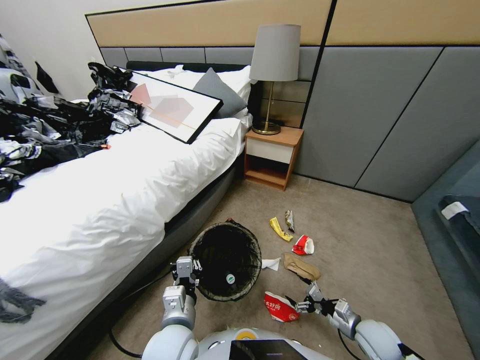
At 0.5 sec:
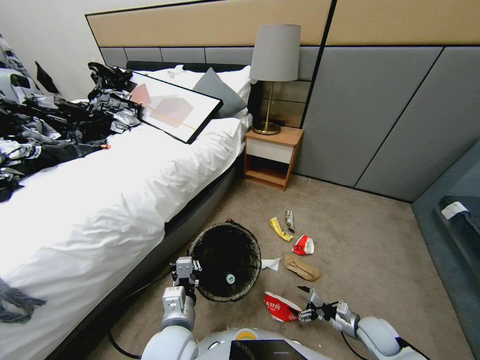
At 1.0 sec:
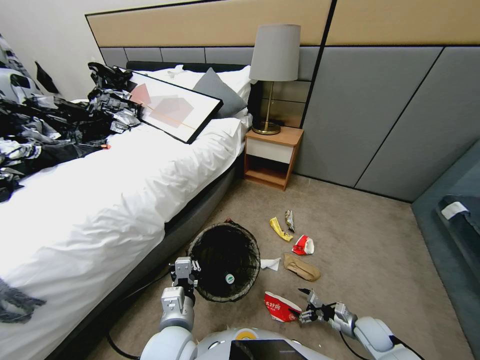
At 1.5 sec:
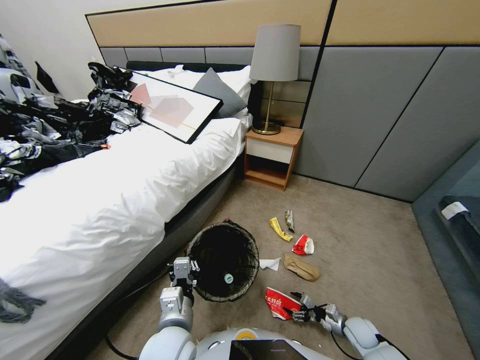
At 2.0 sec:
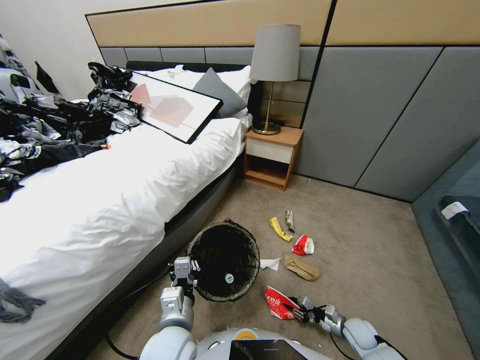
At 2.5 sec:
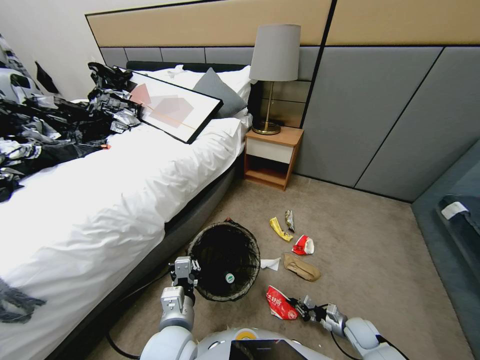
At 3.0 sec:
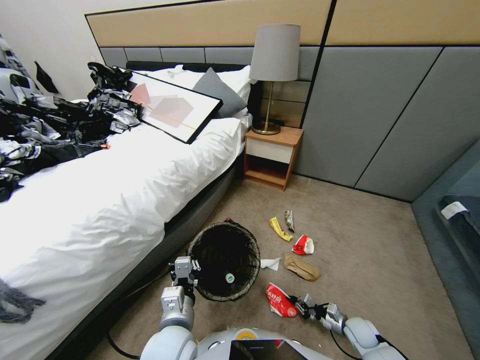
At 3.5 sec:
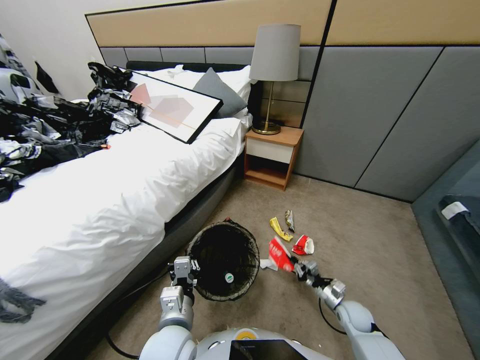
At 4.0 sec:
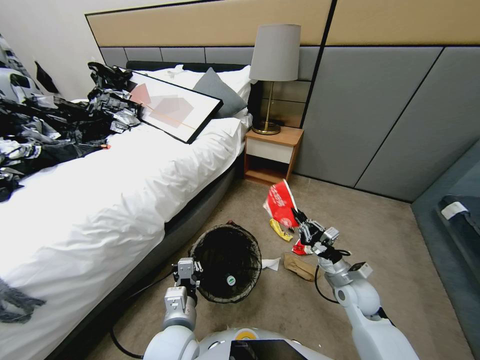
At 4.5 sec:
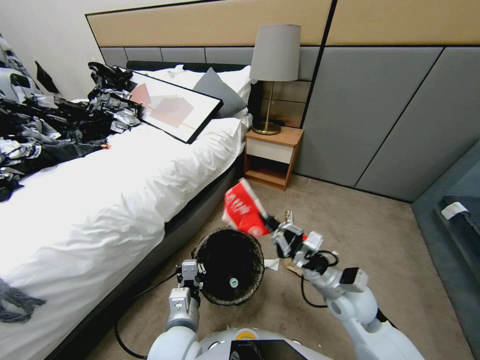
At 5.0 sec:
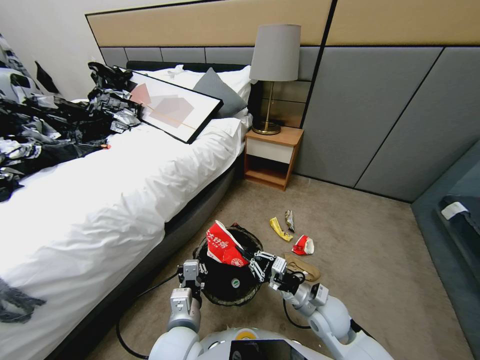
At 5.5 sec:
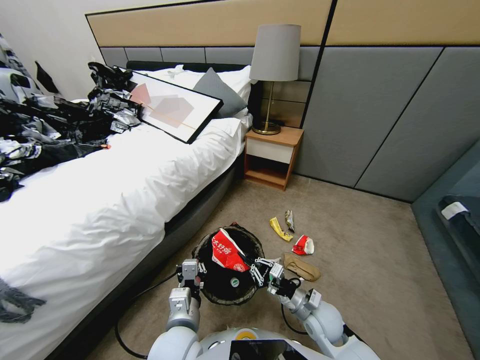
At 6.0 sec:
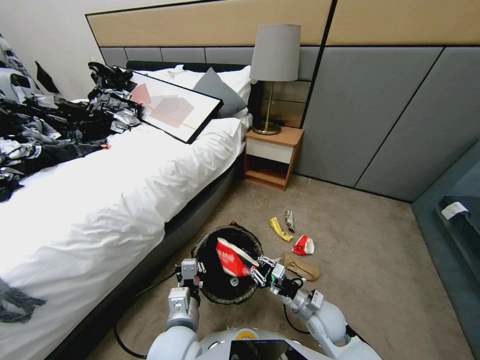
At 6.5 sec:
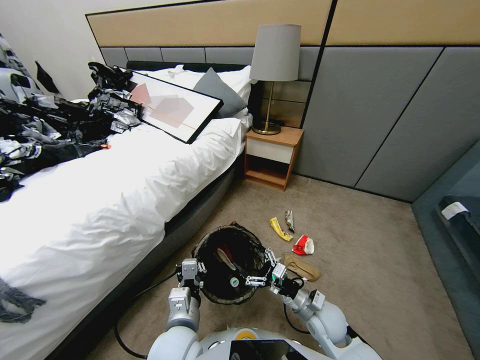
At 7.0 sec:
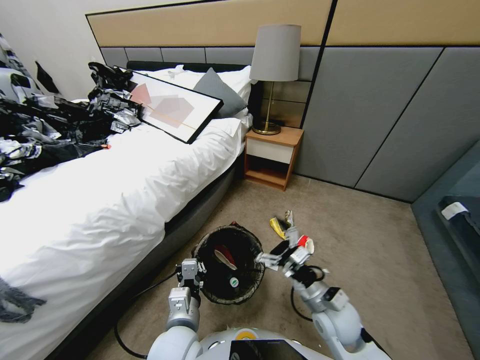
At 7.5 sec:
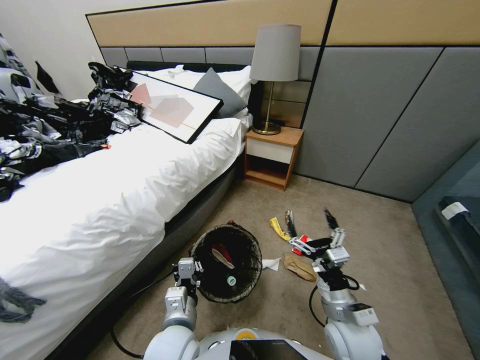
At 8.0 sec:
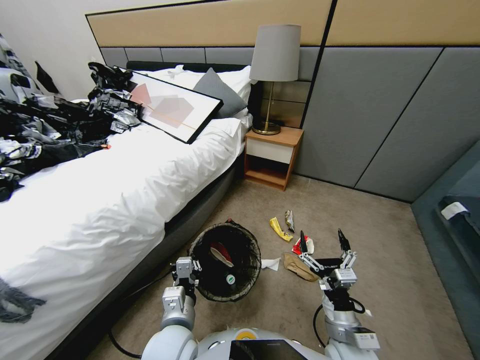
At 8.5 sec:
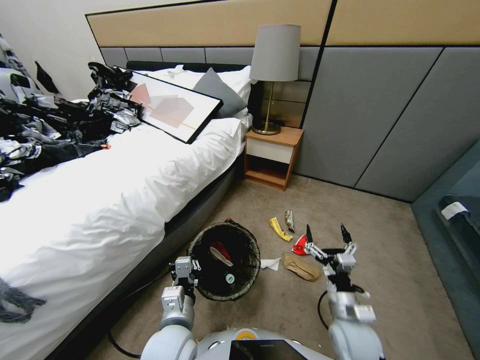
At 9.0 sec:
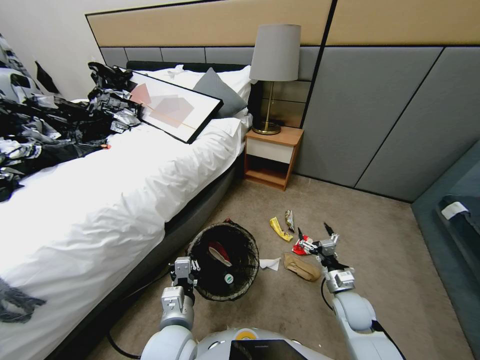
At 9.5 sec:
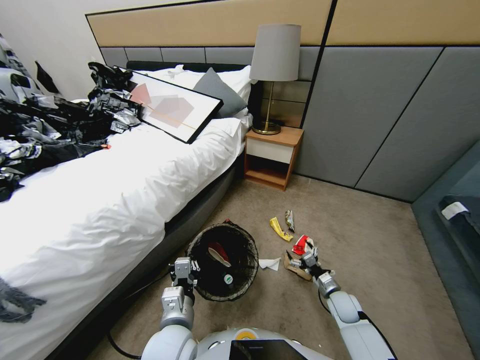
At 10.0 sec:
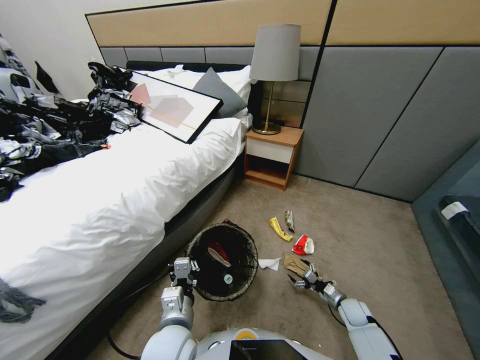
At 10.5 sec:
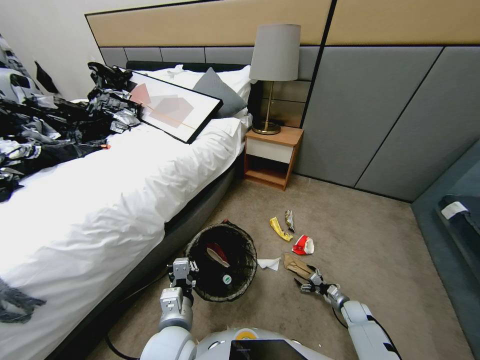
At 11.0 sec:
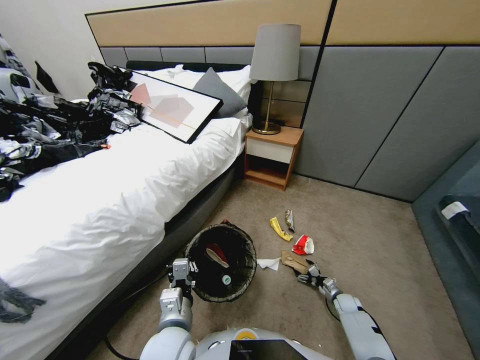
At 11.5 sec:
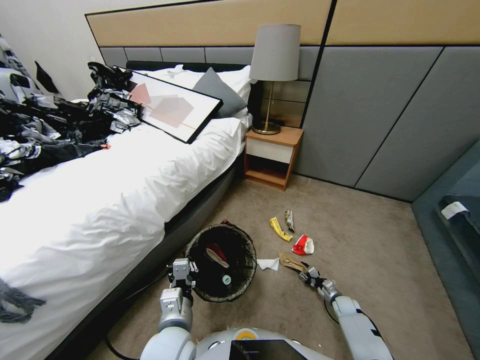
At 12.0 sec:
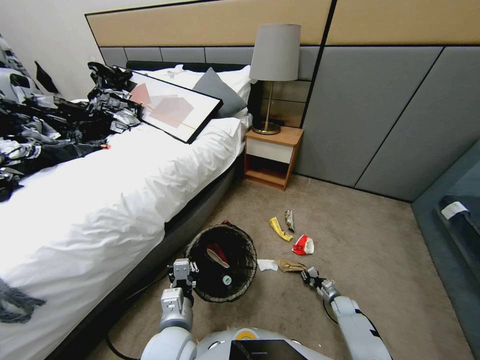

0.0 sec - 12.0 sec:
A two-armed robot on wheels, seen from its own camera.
Task of the whole recording: Pick up the trash bin, then pick up the garbage from the floor and place it into the trash bin.
0.0 sec - 2.0 sec: The right gripper goes about 10 cm downward, and closes its fingers.
2.0 sec - 4.0 sec: The right gripper heads upward and to the left, covering some 25 cm.
4.0 sec - 6.0 sec: The right gripper heads downward and to the left, covering roughly 10 cm, and opens up.
6.0 sec - 8.0 sec: The right gripper moves backward, some 10 cm, and opens up.
8.0 sec - 10.0 sec: The right gripper is displaced downward, to the right and forward by about 30 cm.
10.0 sec - 12.0 sec: The right gripper is displaced downward by roughly 5 cm, and closes.

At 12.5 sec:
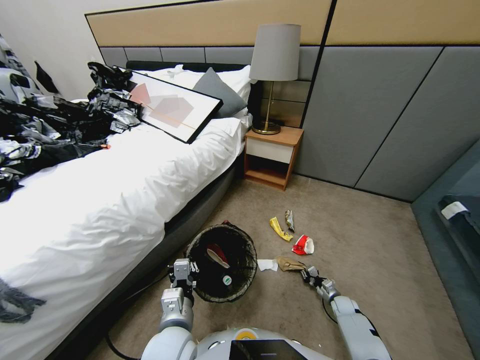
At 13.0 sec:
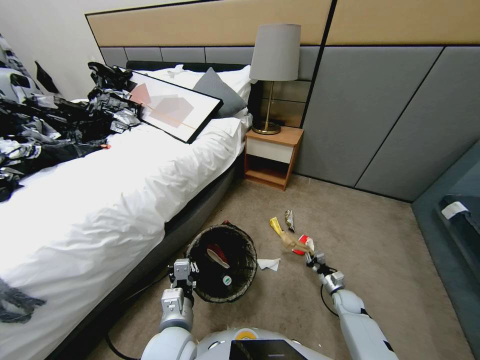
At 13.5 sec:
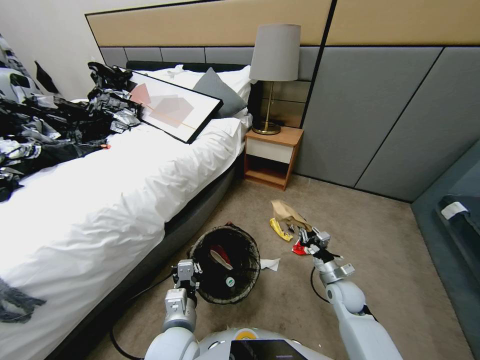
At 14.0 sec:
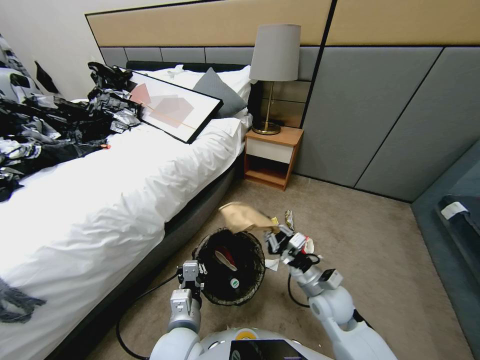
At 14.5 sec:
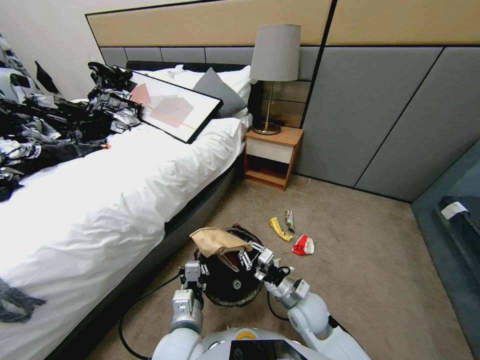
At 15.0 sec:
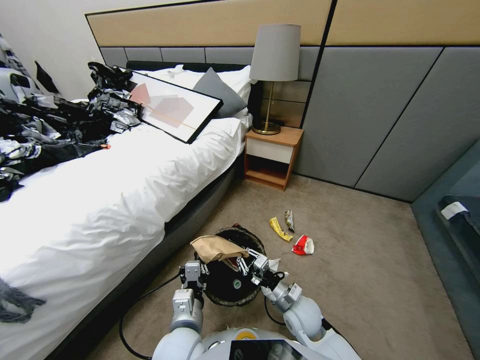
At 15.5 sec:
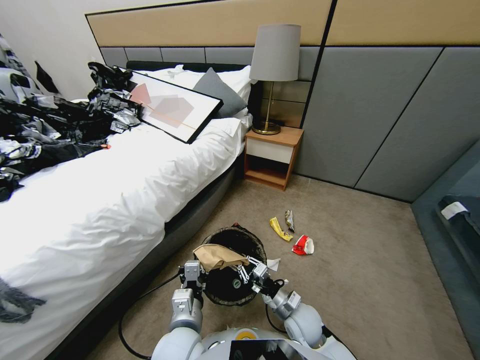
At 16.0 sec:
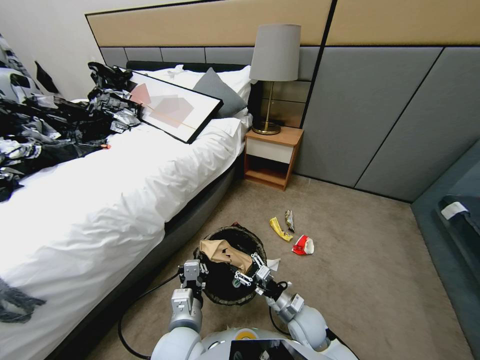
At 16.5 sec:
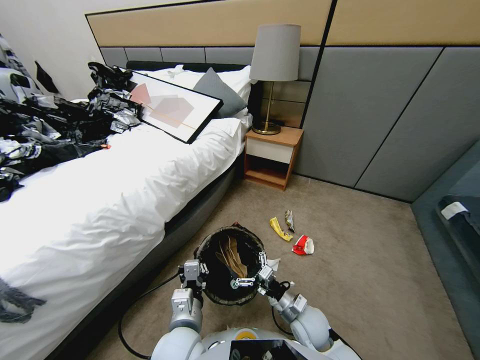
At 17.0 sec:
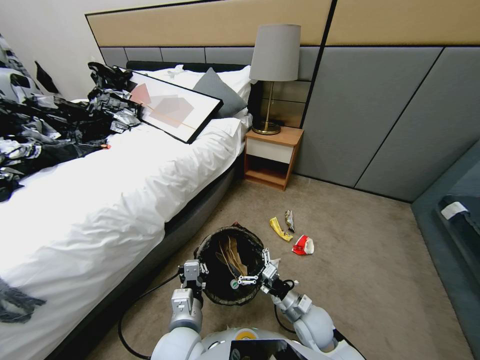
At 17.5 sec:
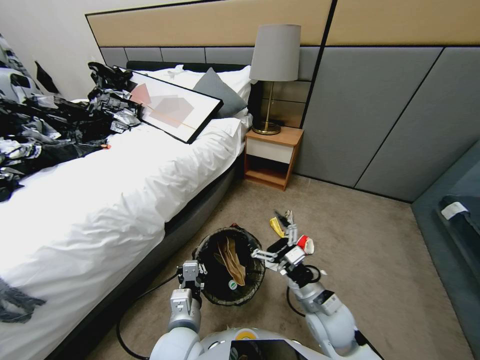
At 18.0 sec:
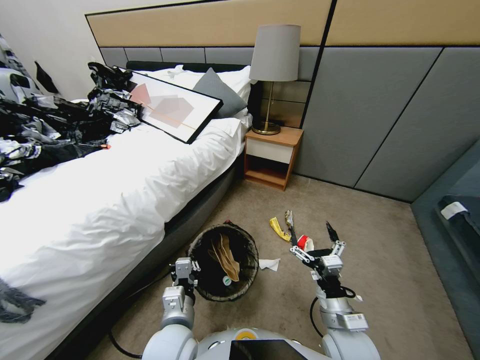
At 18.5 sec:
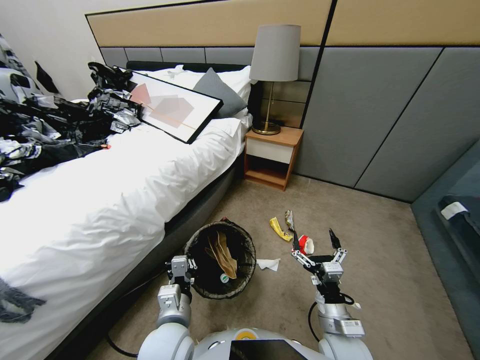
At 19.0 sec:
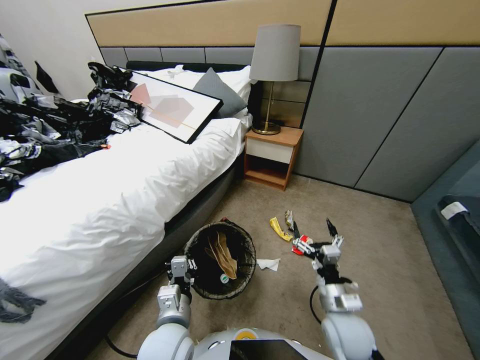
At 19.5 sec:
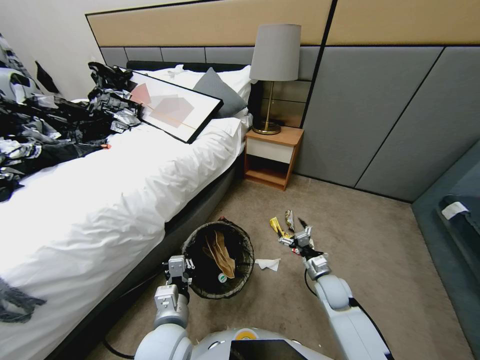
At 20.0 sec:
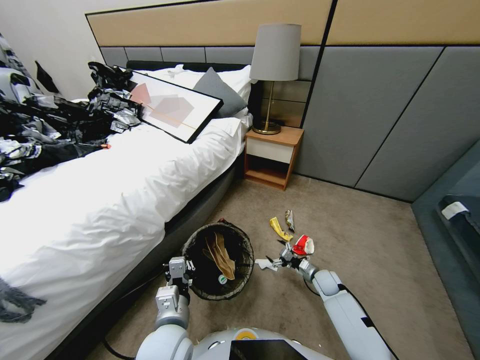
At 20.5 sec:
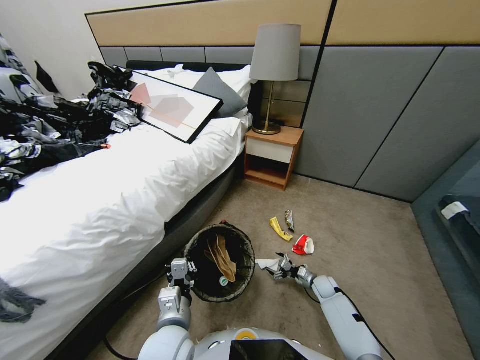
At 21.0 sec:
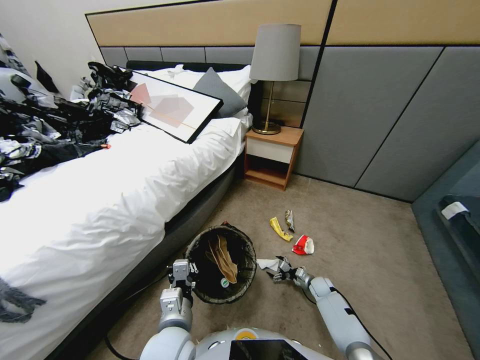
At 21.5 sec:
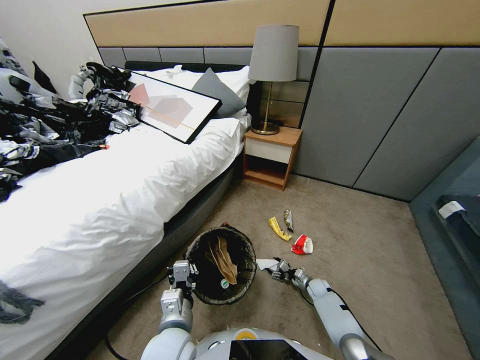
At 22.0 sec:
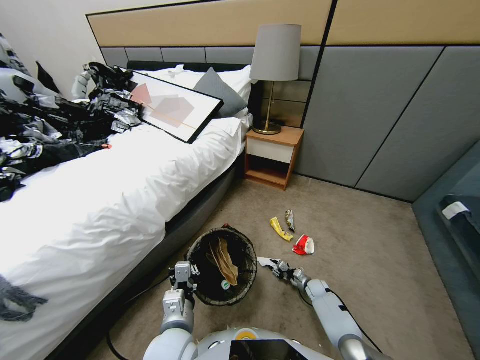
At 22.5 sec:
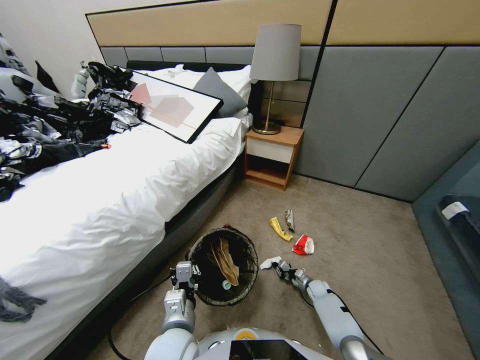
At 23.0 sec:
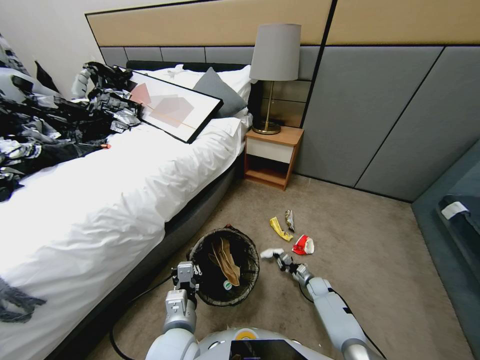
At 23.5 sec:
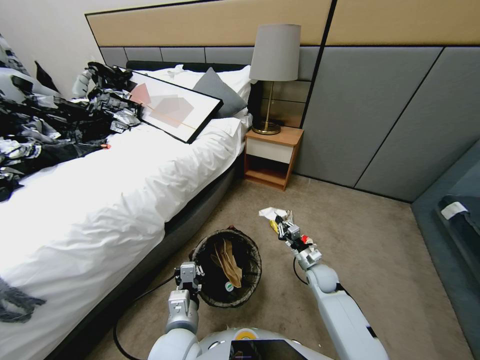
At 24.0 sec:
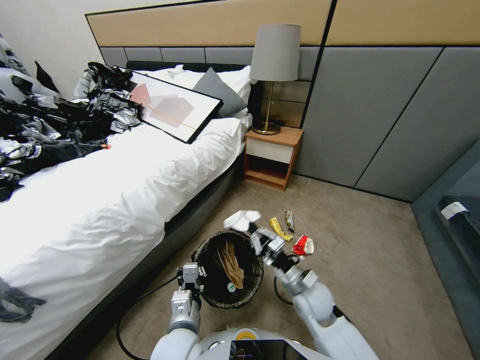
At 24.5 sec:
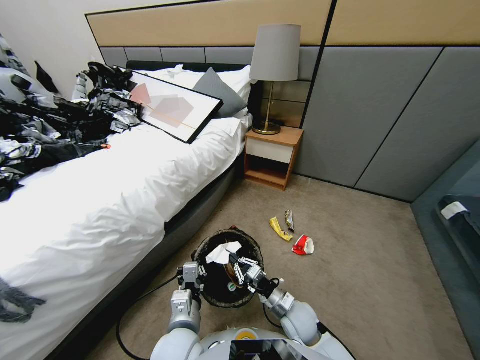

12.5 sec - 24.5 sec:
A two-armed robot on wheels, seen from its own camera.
Task of the whole recording: Pick up the trash bin, then pick up the garbage from the floor and place it into the trash bin.
12.5 sec - 14.5 sec: The right gripper shifts some 35 cm to the left and upward.
14.5 sec - 16.5 sec: The right gripper ends up about 5 cm from where it was, and opens up.
16.5 sec - 18.5 sec: The right gripper travels upward and backward by about 10 cm.
18.5 sec - 20.5 sec: The right gripper moves downward, forward and to the right, about 35 cm.
20.5 sec - 22.5 sec: The right gripper closes up.
22.5 sec - 24.5 sec: The right gripper is displaced upward, to the left and backward by some 30 cm.

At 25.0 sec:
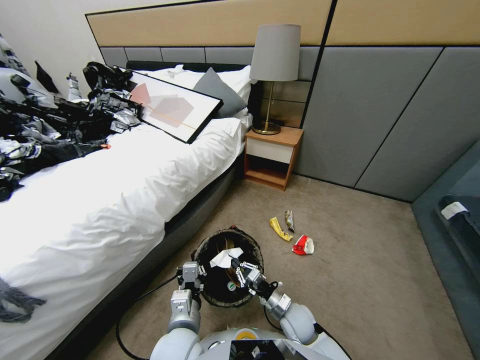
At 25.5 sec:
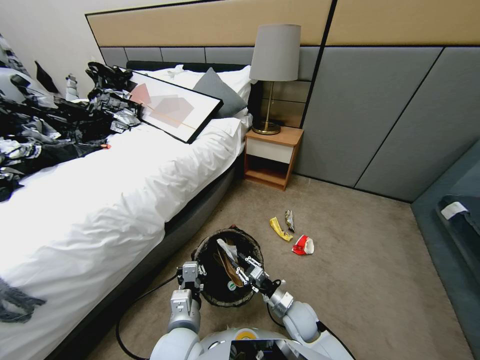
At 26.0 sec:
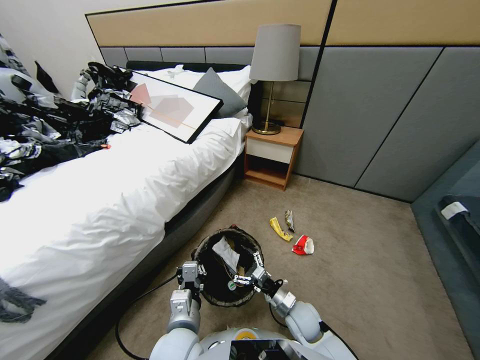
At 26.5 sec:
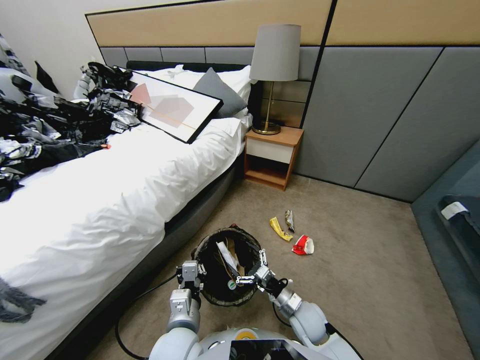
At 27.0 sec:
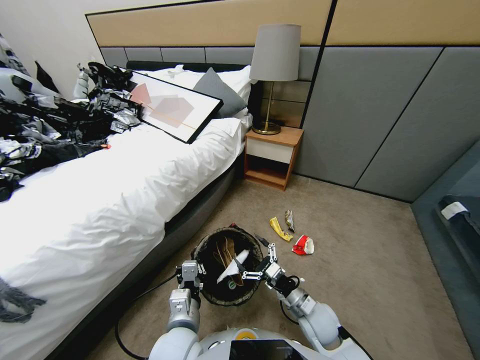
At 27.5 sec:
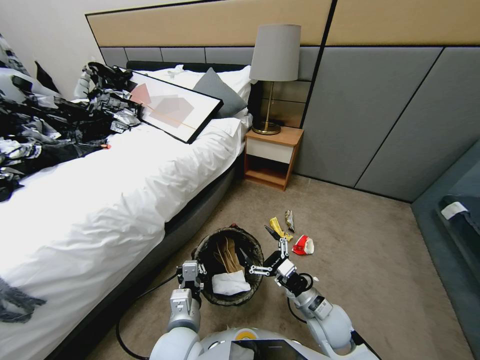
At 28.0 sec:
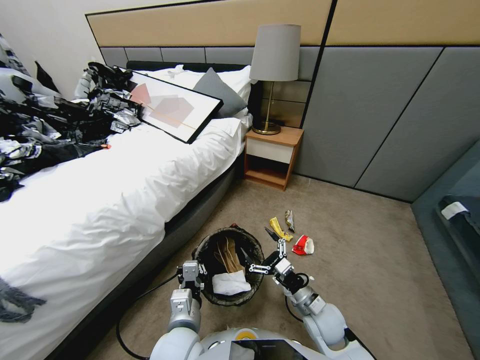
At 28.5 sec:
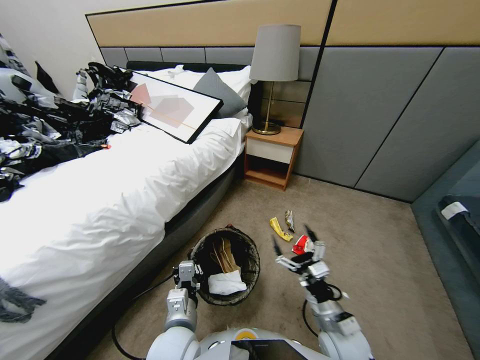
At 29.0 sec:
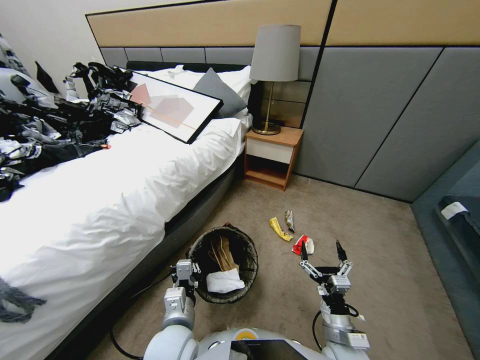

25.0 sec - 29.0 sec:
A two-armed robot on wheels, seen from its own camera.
Task of the whole recording: Pick up the trash bin, then pick up the garbage from the floor and place it into the trash bin.
25.0 sec - 27.0 sec: The right gripper heads upward, covering some 10 cm, and opens its fingers.
27.0 sec - 29.0 sec: The right gripper is displaced backward by some 10 cm.
